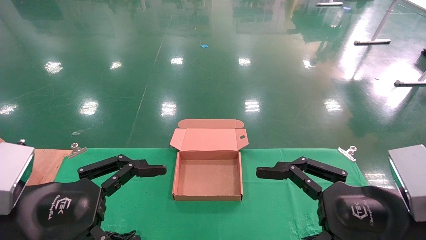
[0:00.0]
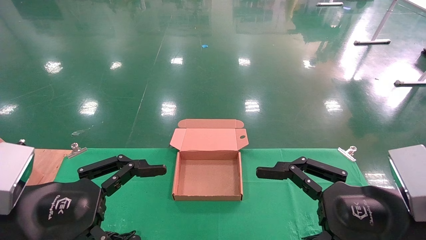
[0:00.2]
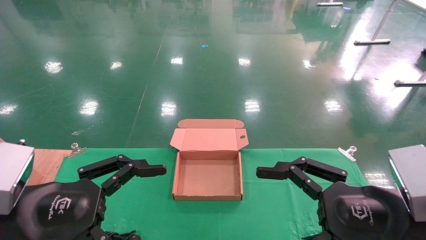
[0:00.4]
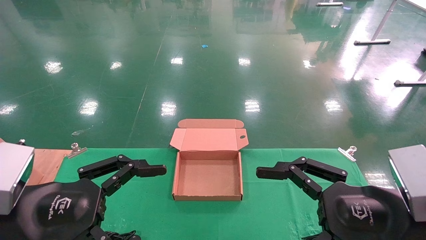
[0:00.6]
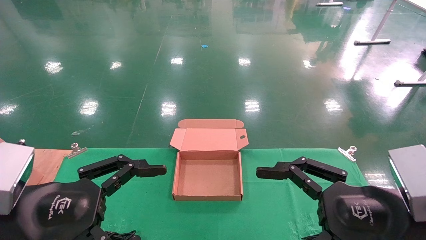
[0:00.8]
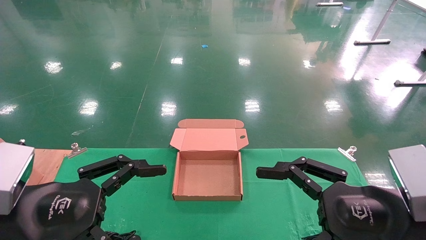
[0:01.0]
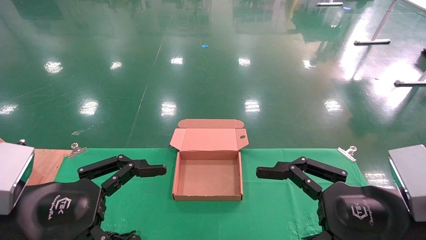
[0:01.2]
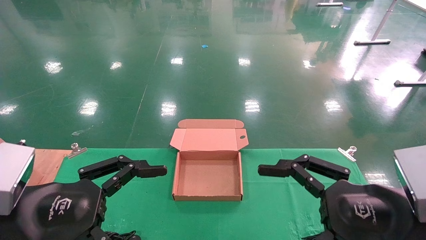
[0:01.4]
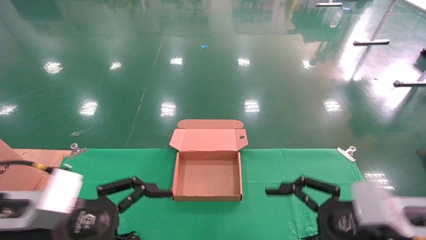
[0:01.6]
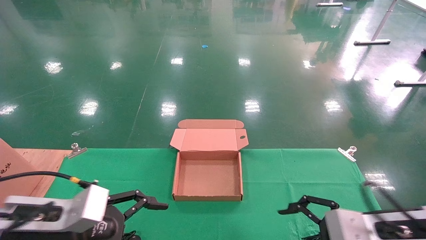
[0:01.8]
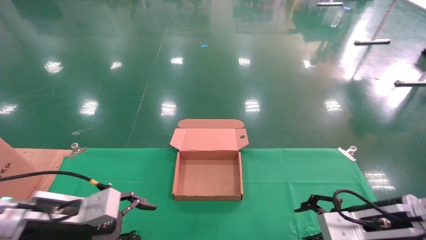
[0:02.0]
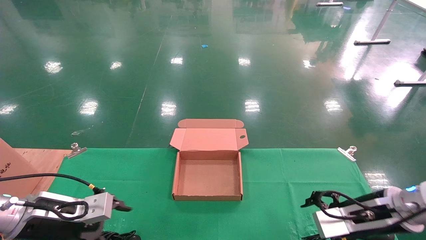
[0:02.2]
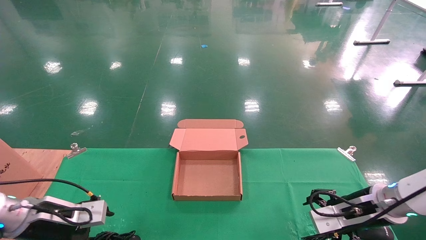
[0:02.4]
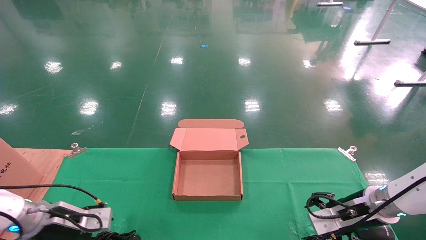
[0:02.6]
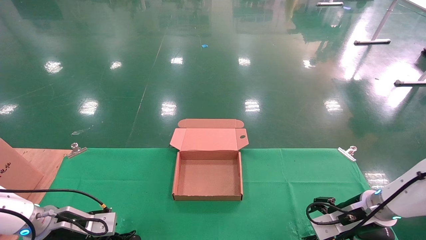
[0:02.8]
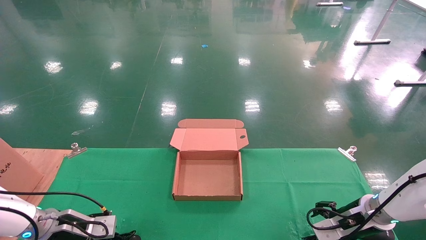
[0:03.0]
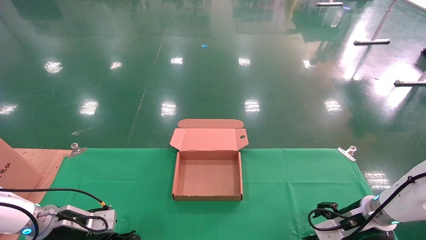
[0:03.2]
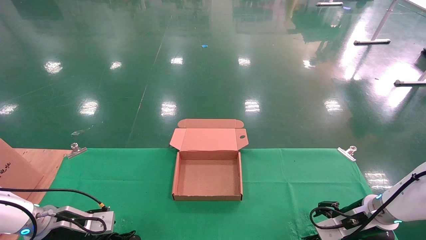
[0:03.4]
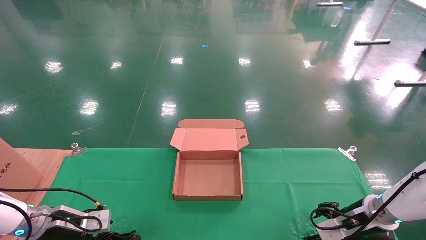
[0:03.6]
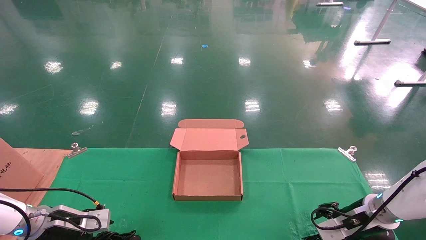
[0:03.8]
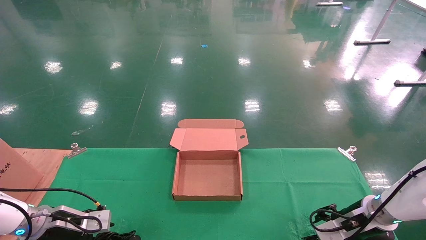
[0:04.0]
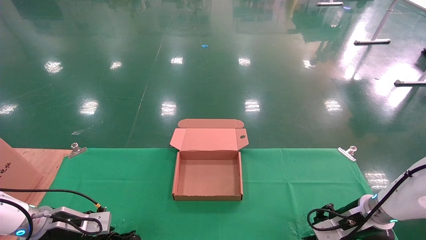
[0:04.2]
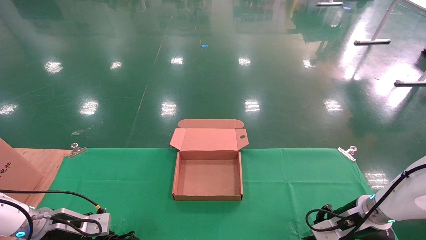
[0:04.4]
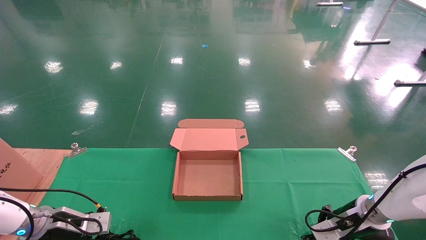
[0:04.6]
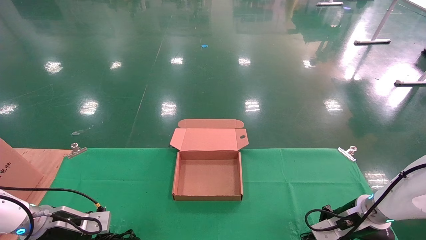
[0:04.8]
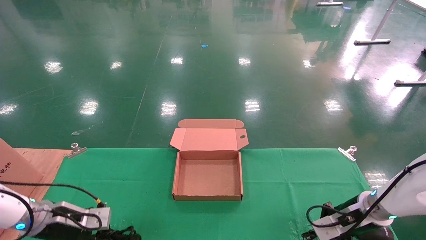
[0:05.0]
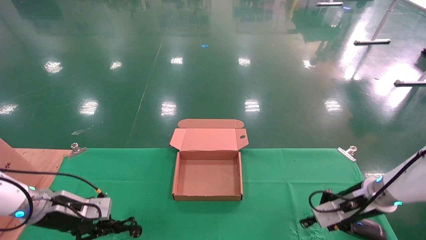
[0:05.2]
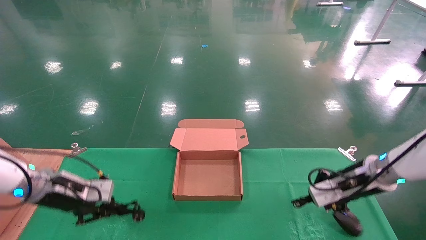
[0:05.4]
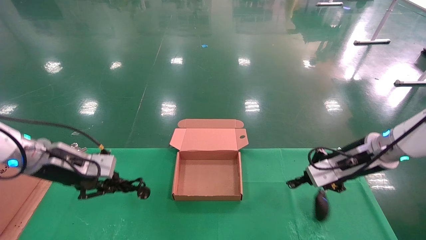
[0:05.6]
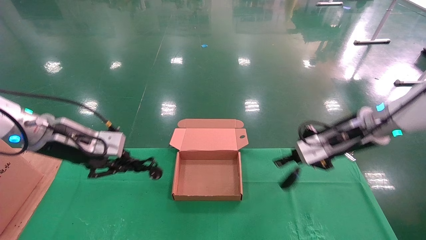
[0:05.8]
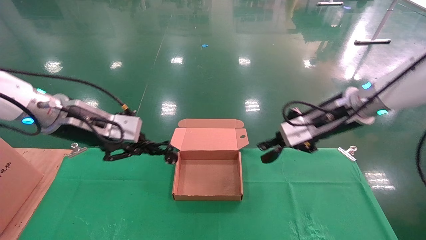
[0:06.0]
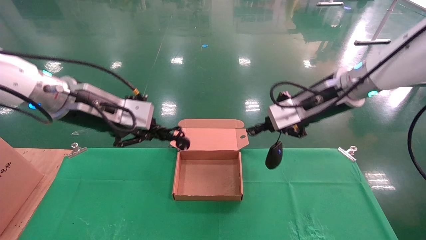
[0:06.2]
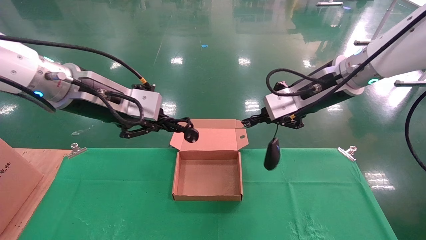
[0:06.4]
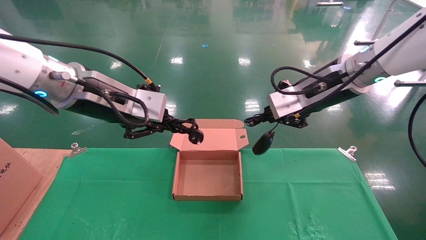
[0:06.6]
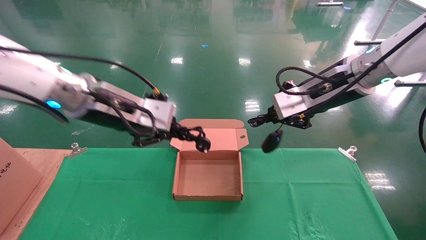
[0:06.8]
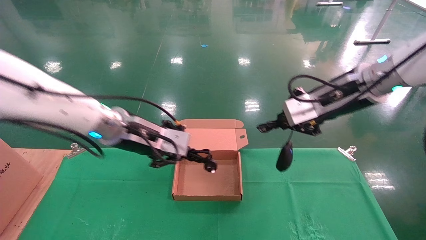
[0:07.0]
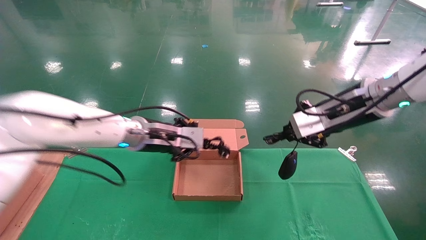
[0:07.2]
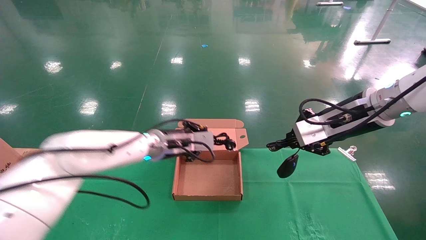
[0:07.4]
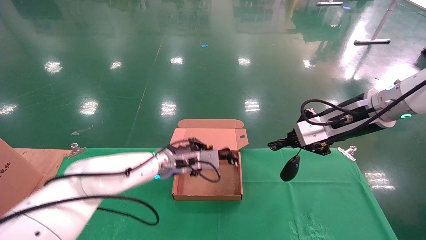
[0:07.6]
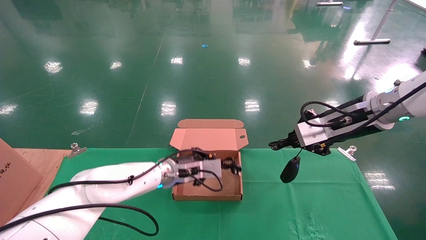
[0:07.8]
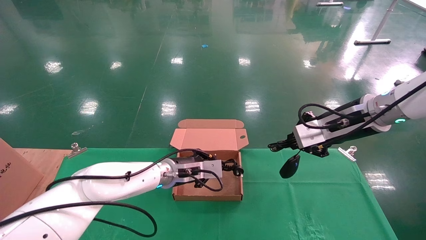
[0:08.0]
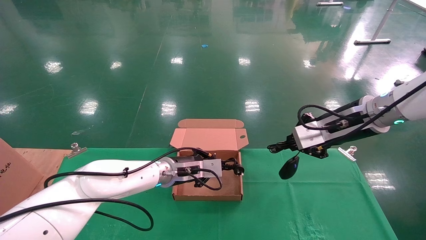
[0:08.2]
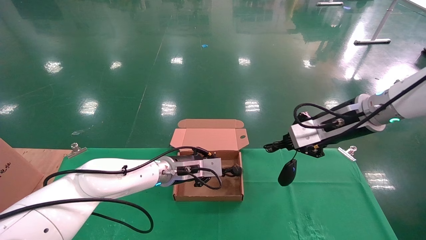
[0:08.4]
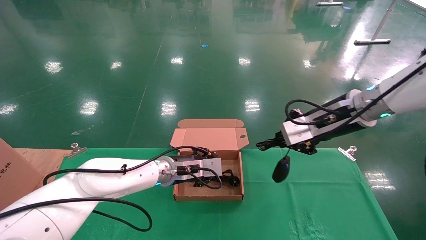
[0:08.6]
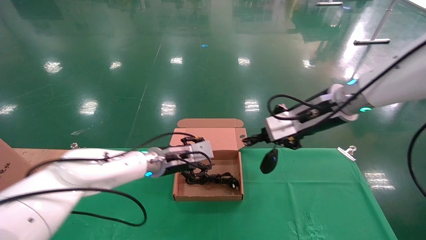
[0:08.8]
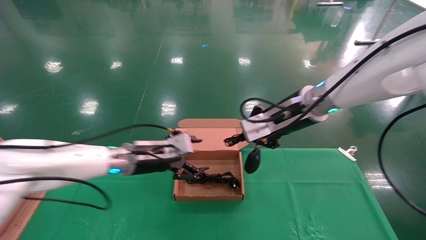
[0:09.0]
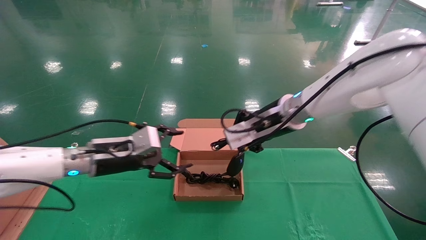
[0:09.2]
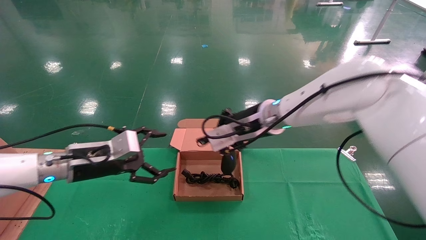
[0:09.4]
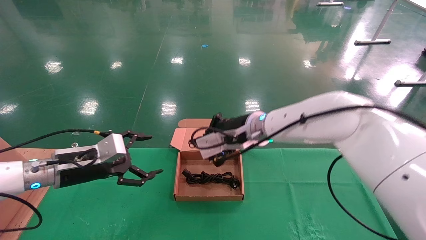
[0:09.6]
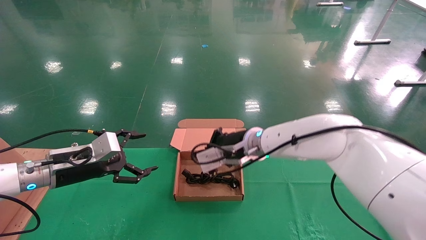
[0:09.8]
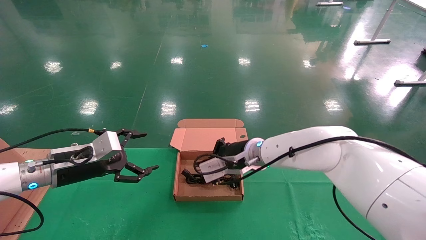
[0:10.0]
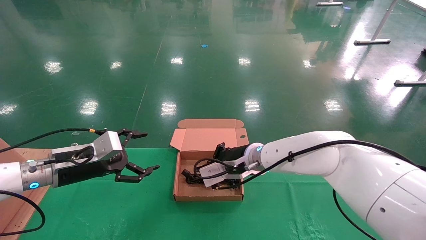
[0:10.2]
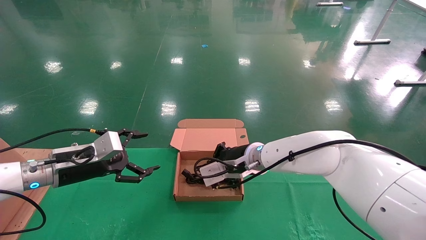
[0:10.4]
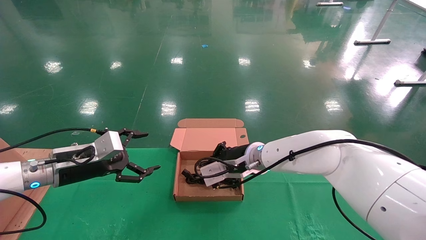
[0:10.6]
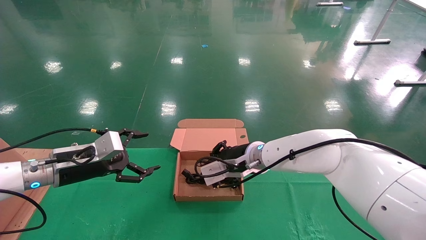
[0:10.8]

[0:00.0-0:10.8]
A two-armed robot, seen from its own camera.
Step, 0:01.4 to 0:05.2: Grab and lift both the mouse and power cord from the accessory packaging area at the same time.
0:00.0 to 0:01.6: The right gripper changes place by roughly 5 cm.
0:01.6 to 0:03.0: The left gripper heads forward, downward and to the left, covering roughly 20 cm. The right gripper moves forward and downward, some 20 cm.
0:03.0 to 0:04.6: The right gripper closes. Meanwhile the left gripper closes its fingers.
0:04.6 to 0:06.2: The right gripper is displaced upward by approximately 30 cm. Meanwhile the left gripper goes roughly 30 cm upward and to the right.
0:06.2 to 0:07.8: The right gripper moves to the right, some 5 cm. The left gripper moves downward, forward and to the right, approximately 25 cm.
0:07.8 to 0:09.2: The left gripper heads to the left and backward, covering some 15 cm, and opens its fingers. The right gripper shifts roughly 15 cm to the left.
0:09.2 to 0:10.8: The right gripper travels downward and to the left by approximately 15 cm. The left gripper heads to the left, covering approximately 10 cm.

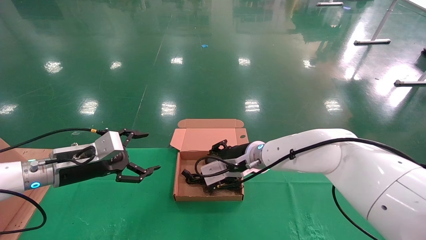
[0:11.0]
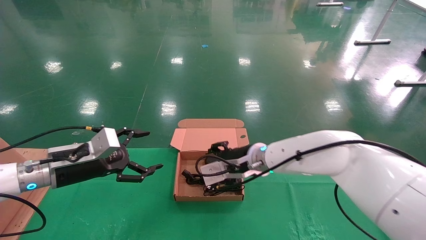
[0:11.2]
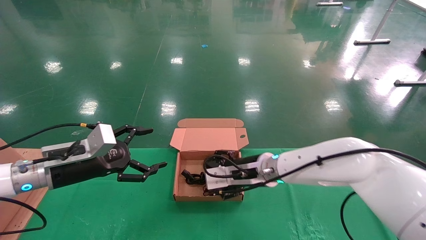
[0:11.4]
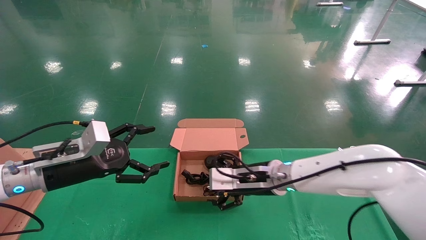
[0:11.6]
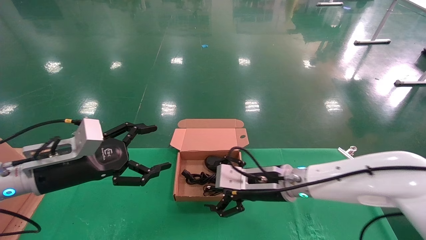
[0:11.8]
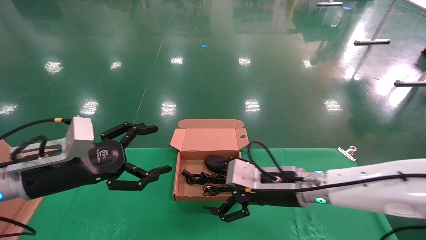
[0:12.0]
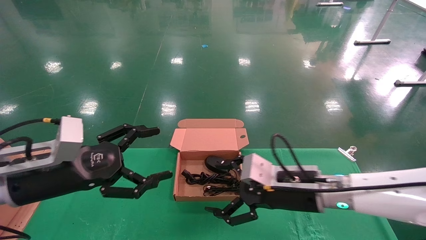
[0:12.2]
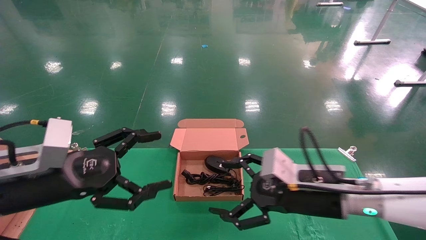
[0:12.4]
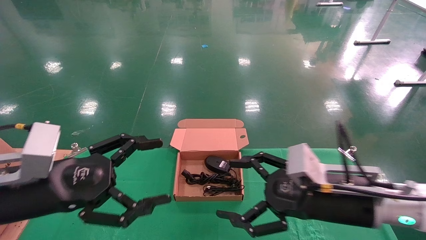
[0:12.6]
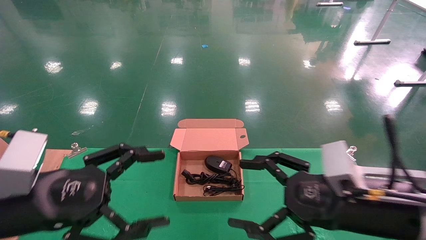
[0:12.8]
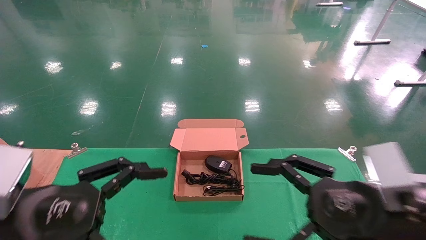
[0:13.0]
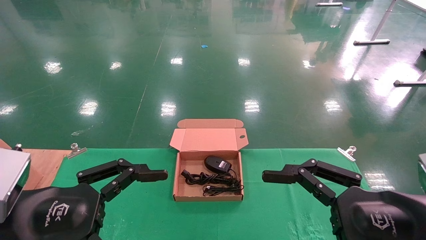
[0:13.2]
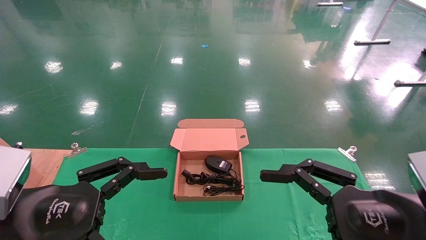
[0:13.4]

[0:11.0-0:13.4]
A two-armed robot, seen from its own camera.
0:11.0 to 0:12.2: The left gripper heads backward, covering approximately 10 cm. The right gripper travels backward and to the right by roughly 15 cm, and opens up.
0:12.2 to 0:13.4: The left gripper moves backward, approximately 10 cm. Meanwhile the right gripper moves backward and to the right, approximately 20 cm.

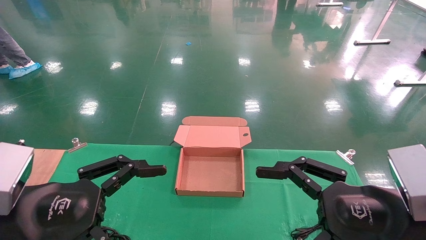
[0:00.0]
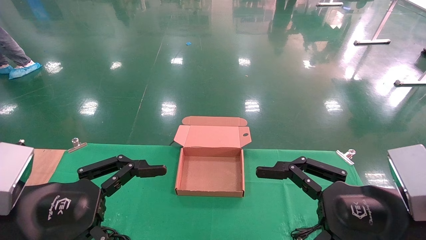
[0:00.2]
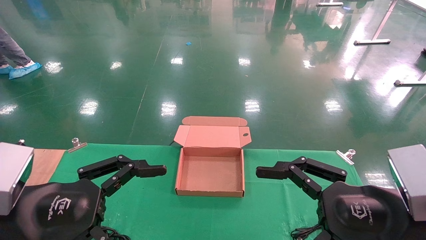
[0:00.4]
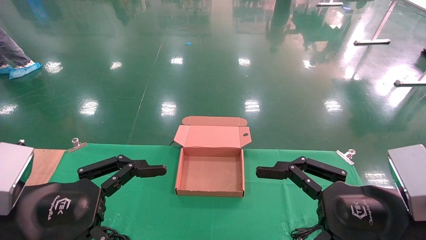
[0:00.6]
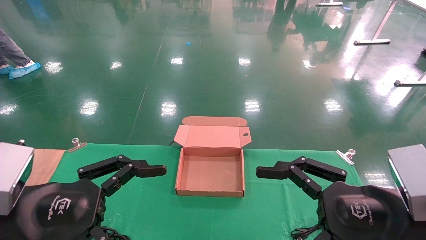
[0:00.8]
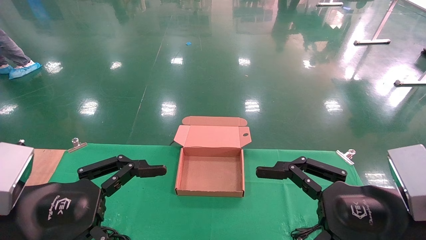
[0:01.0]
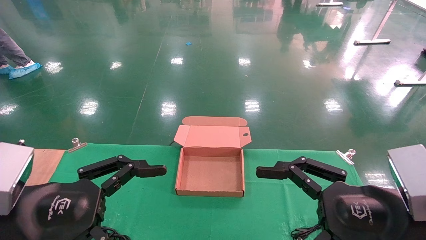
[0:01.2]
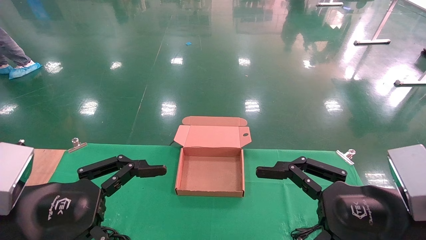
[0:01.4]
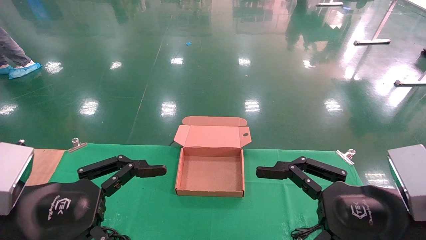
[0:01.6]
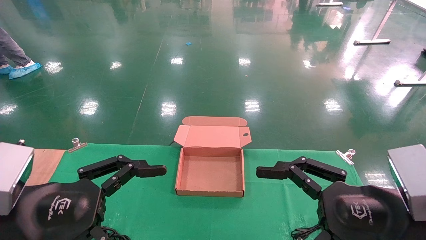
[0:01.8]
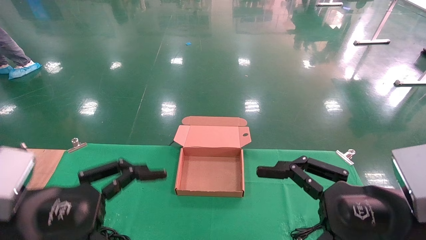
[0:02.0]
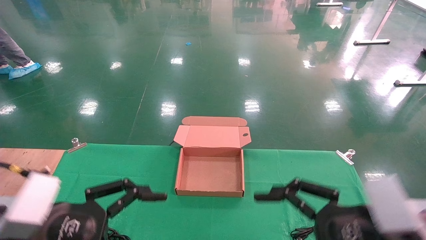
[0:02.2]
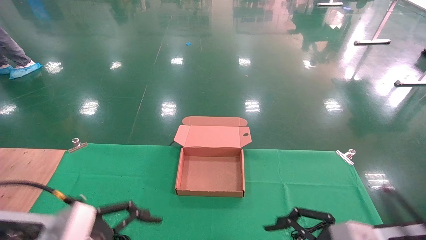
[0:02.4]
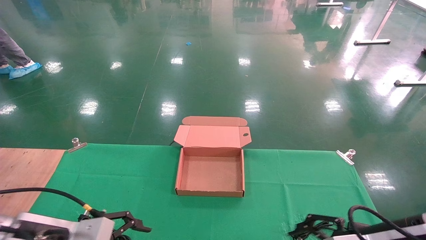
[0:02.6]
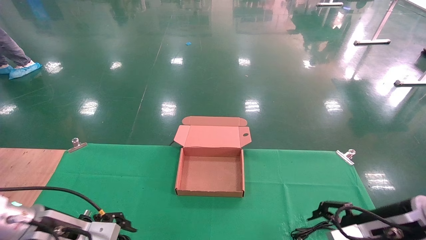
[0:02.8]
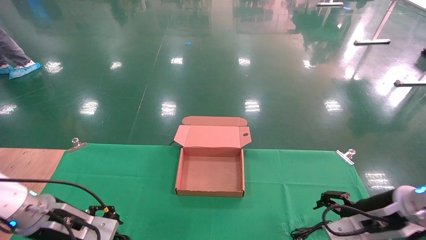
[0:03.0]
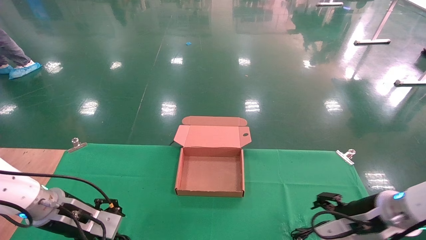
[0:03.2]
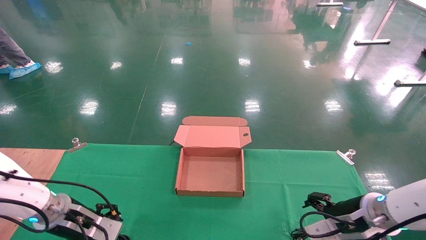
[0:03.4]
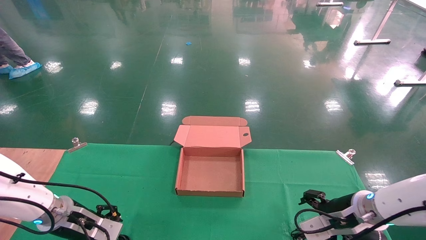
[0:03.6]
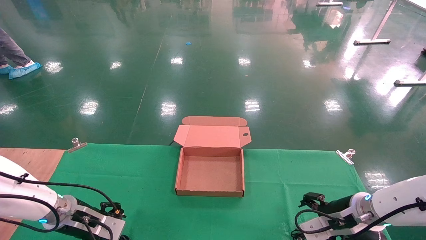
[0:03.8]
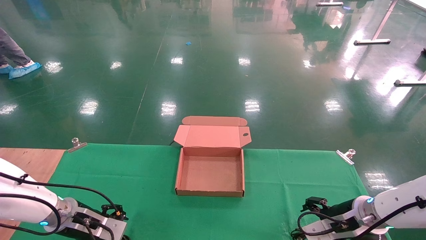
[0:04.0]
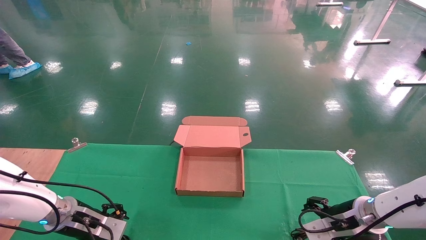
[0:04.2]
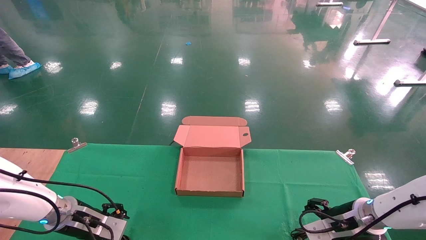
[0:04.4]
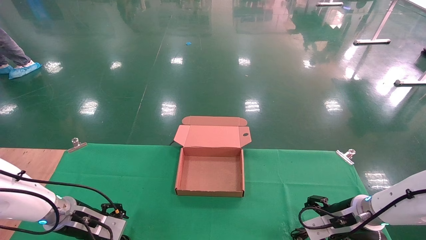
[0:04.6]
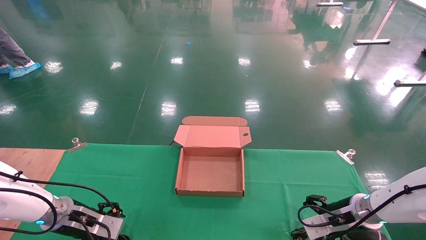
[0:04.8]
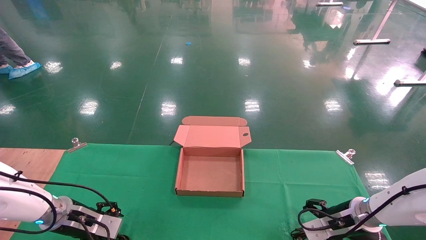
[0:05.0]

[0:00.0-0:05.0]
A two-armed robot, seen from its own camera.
0:00.0 to 0:01.6: Neither gripper changes place.
0:01.6 to 0:03.4: Both grippers move forward and downward, about 20 cm.
0:03.4 to 0:05.0: The left gripper changes place by about 5 cm, while the right gripper travels forward and downward by roughly 10 cm.
